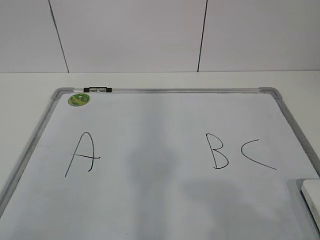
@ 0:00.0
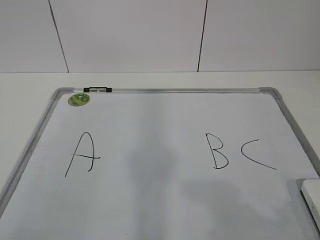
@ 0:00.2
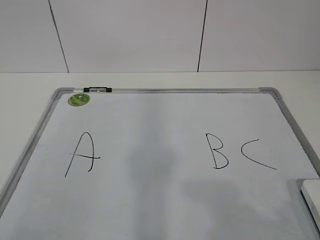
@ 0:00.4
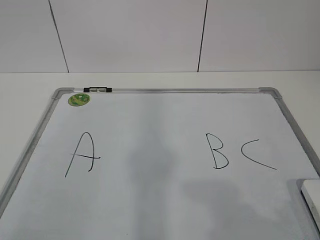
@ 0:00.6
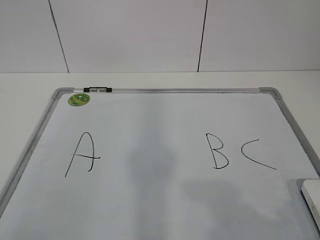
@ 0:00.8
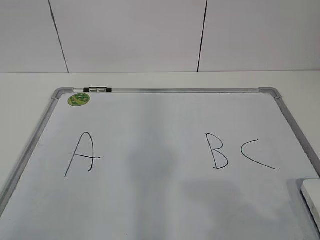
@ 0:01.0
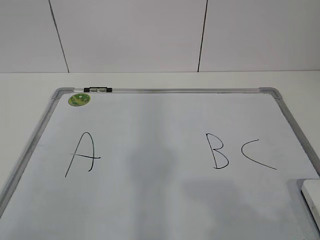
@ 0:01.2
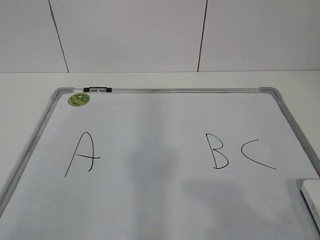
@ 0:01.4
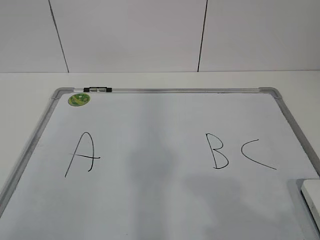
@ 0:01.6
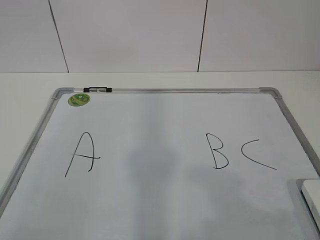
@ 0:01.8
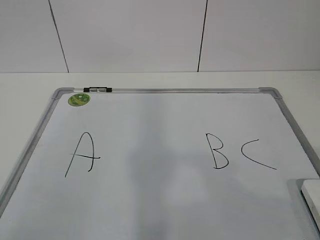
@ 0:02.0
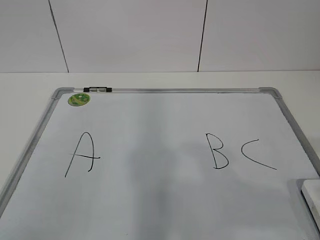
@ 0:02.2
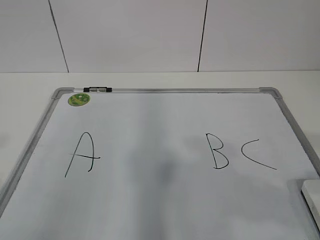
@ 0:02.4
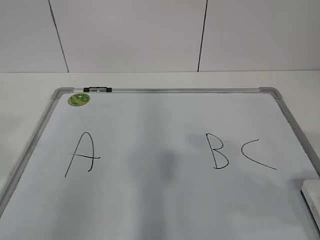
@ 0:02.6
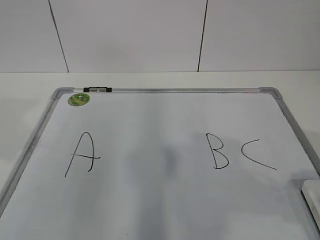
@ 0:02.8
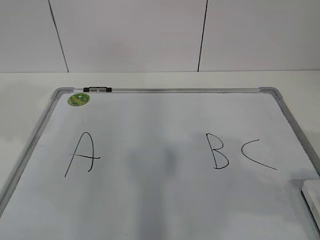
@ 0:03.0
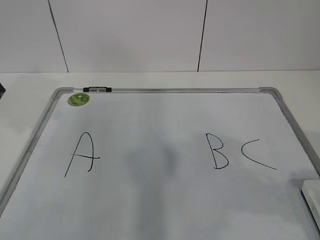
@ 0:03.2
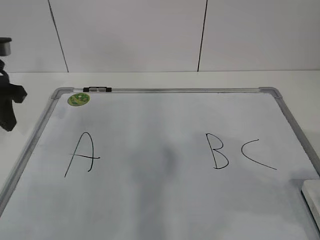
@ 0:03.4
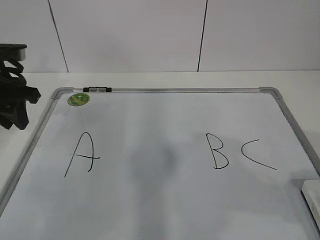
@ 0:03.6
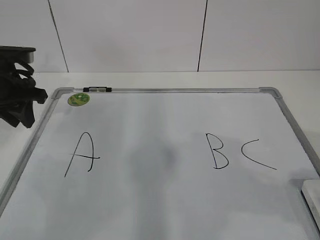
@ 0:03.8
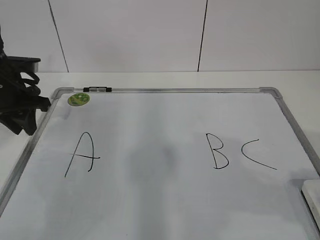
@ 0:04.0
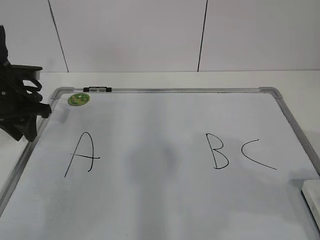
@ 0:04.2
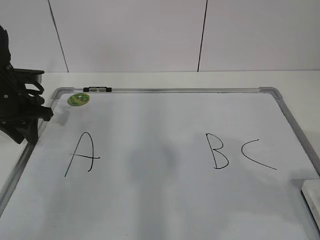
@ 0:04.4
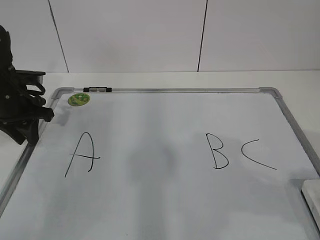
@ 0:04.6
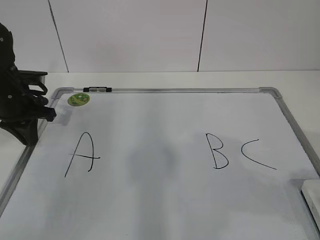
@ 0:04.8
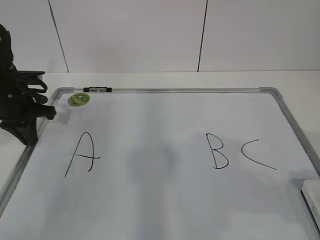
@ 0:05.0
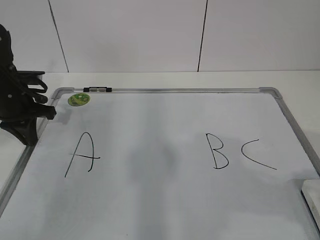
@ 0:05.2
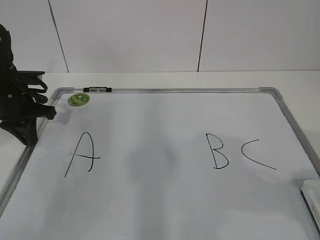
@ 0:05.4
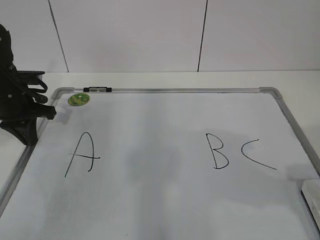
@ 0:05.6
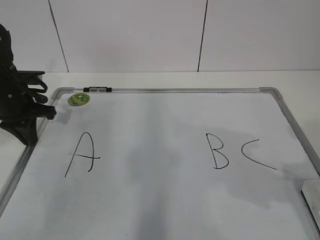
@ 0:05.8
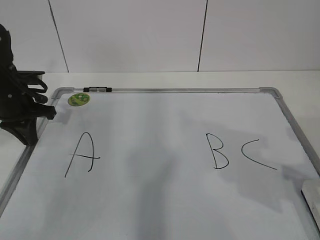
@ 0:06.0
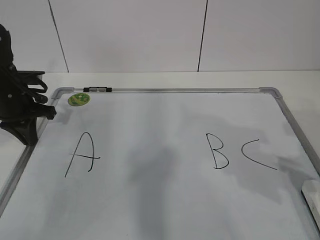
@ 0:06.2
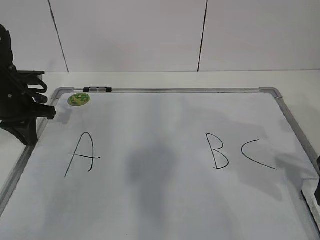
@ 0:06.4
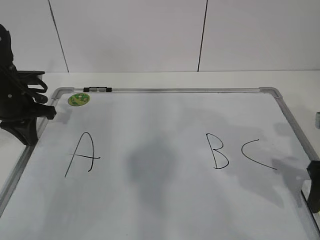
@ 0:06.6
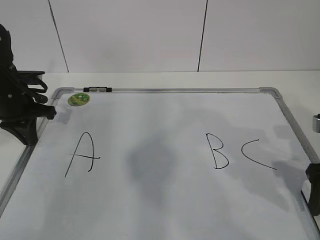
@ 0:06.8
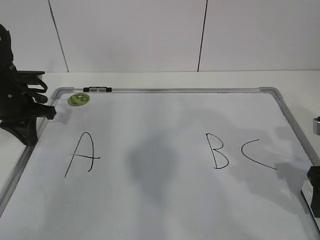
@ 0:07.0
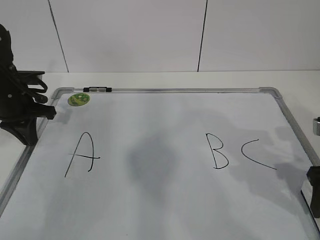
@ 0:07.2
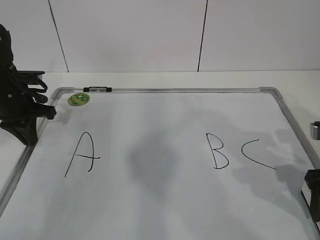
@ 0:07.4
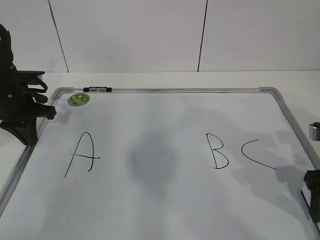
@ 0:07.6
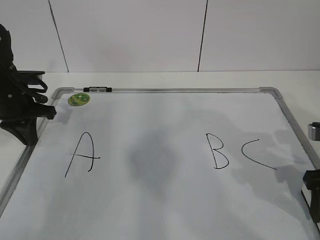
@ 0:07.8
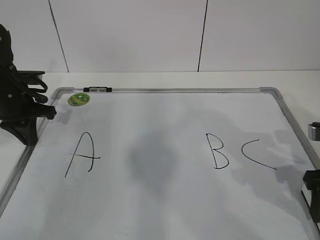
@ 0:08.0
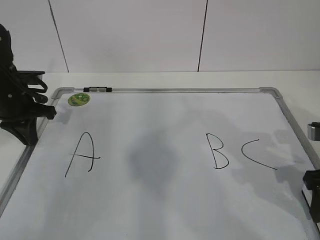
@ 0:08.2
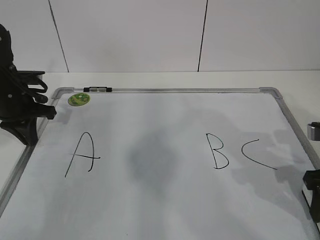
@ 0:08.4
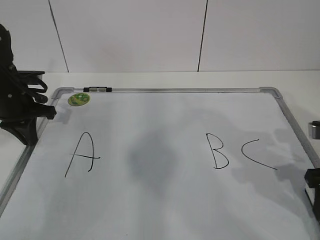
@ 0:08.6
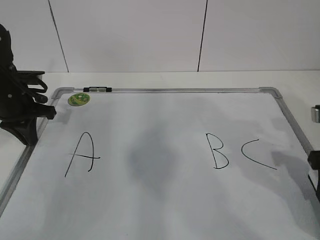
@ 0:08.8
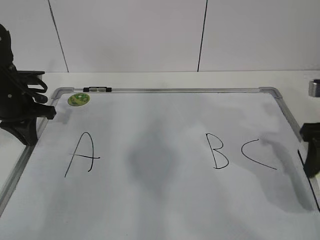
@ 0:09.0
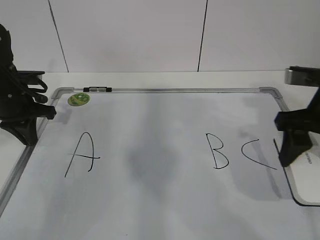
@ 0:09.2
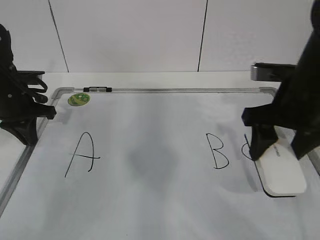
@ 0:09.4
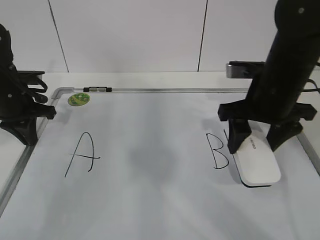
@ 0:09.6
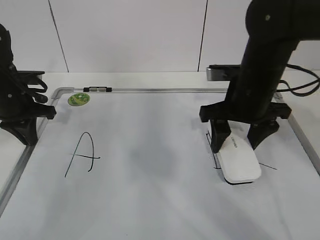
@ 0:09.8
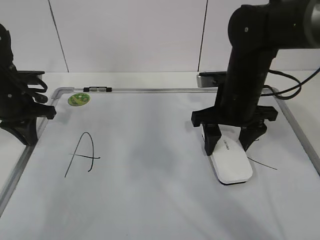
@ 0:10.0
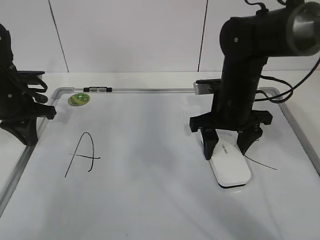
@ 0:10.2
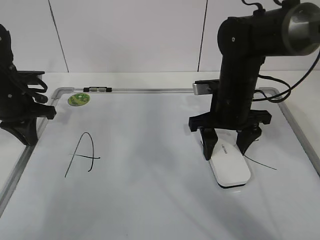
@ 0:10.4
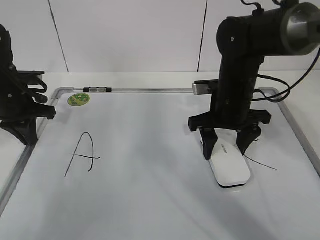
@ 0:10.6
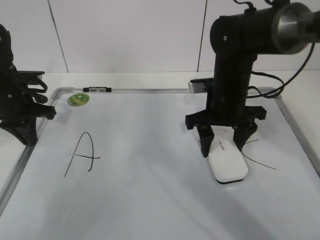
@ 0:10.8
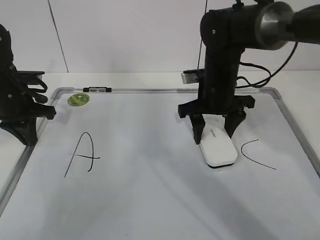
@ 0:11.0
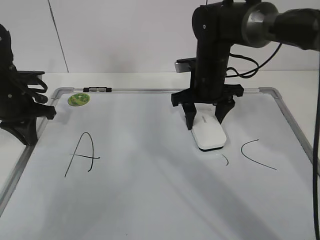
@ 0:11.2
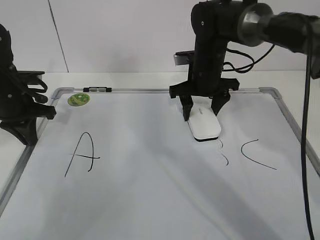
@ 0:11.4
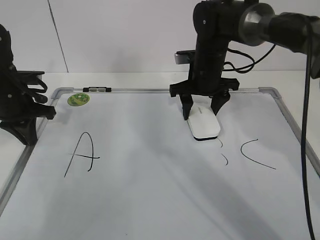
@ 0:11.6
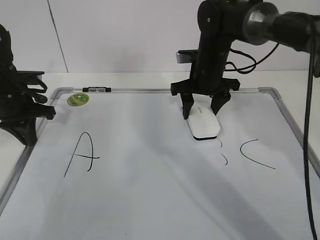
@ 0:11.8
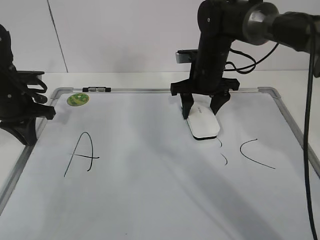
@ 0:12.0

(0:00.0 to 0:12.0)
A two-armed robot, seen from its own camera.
Task of the whole recording: pick up the eraser on the blackboard and erase the letter "B".
Step, 0:00.0 - 0:04.0: Hold the drawing board steady with your left hand.
Step, 0:04.2 - 0:07.0: Grab the eraser with your right hand.
0:01.6 - 0:03.0: The right gripper travels forward by roughly 10 cm. The left gripper heads forward, covering about 25 cm.
0:03.0 - 0:04.4: The left gripper shifts roughly 20 cm forward and downward.
0:04.4 - 0:06.0: The left gripper closes.
0:06.0 - 0:07.6: The right gripper is displaced forward by some 5 cm.
0:07.6 - 0:09.0: The right gripper moves about 5 cm, and closes its fingers.
0:09.0 - 0:10.4: The right gripper moves to the left and forward, some 20 cm.
0:10.4 - 0:12.0: The right gripper moves forward, some 10 cm.

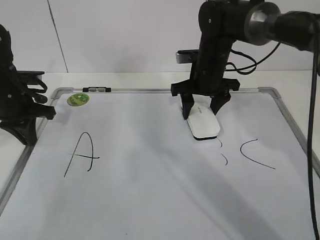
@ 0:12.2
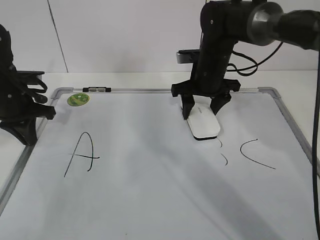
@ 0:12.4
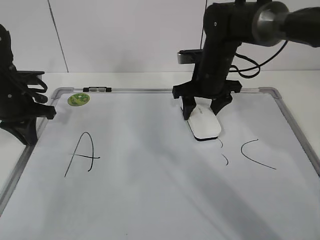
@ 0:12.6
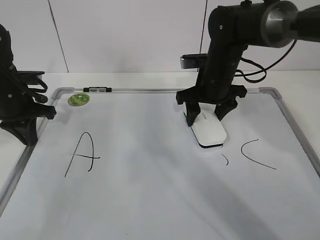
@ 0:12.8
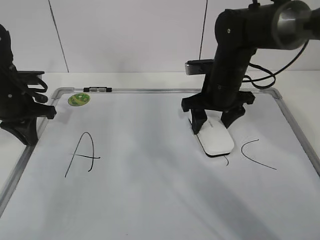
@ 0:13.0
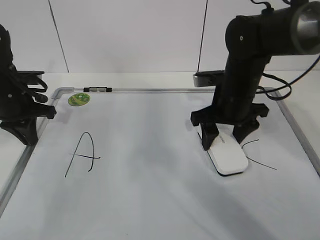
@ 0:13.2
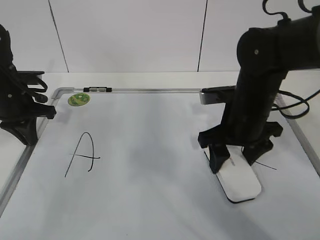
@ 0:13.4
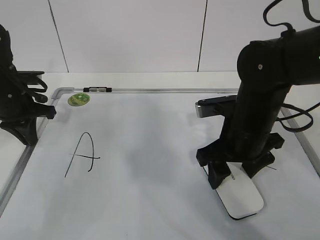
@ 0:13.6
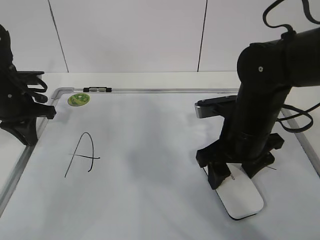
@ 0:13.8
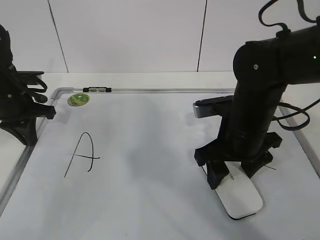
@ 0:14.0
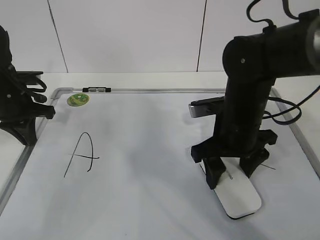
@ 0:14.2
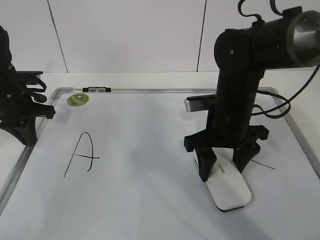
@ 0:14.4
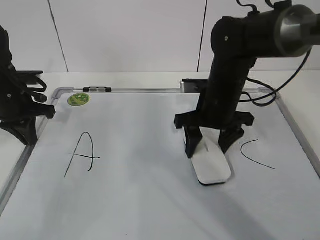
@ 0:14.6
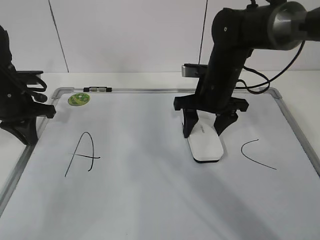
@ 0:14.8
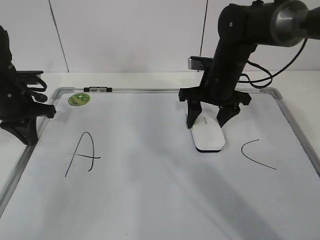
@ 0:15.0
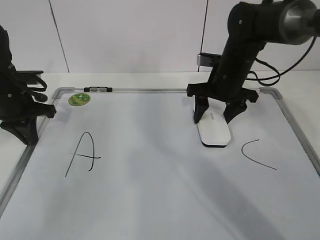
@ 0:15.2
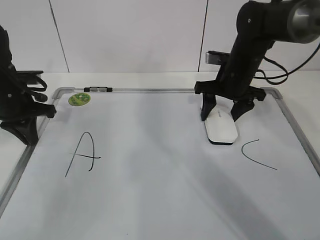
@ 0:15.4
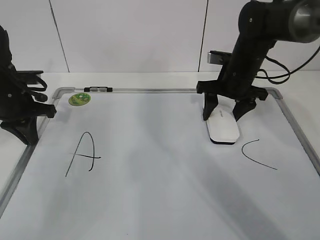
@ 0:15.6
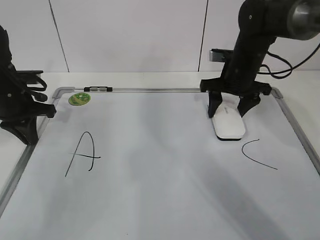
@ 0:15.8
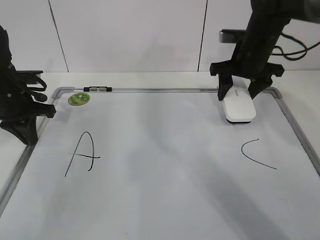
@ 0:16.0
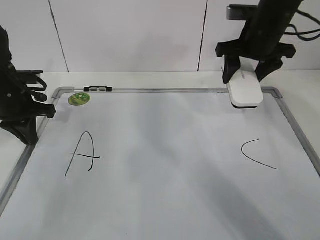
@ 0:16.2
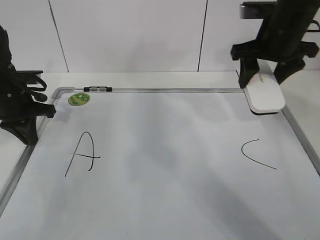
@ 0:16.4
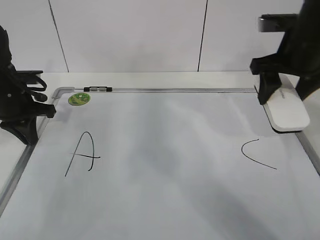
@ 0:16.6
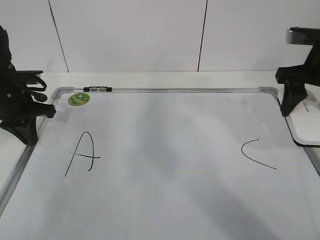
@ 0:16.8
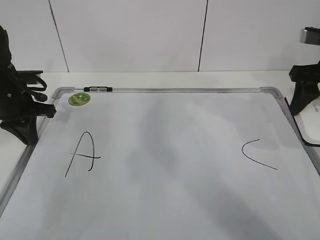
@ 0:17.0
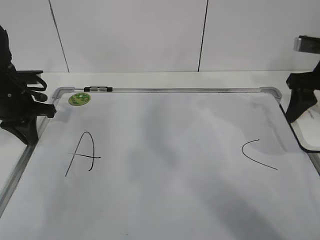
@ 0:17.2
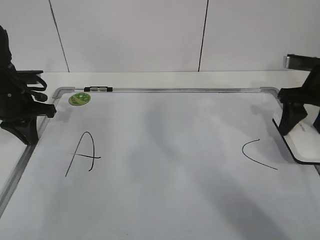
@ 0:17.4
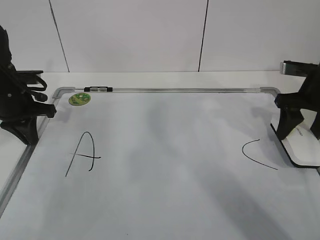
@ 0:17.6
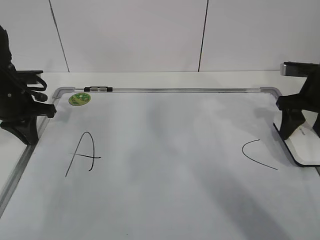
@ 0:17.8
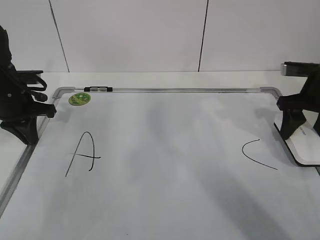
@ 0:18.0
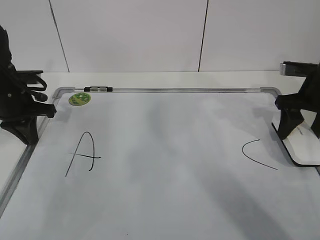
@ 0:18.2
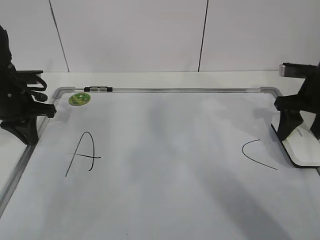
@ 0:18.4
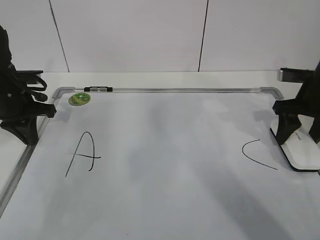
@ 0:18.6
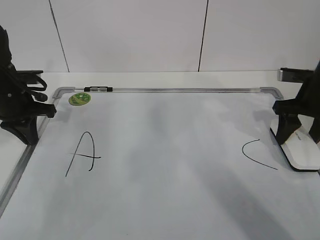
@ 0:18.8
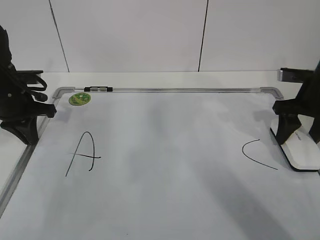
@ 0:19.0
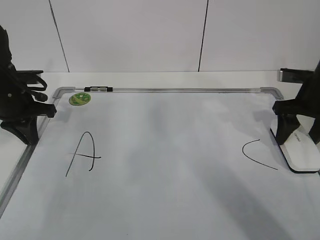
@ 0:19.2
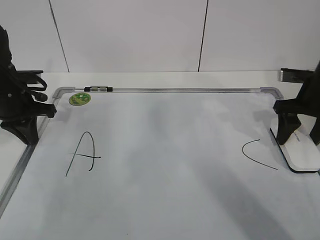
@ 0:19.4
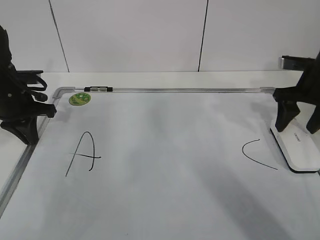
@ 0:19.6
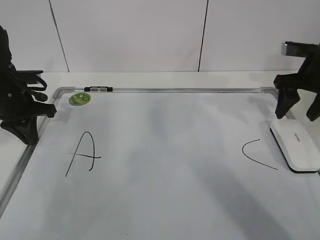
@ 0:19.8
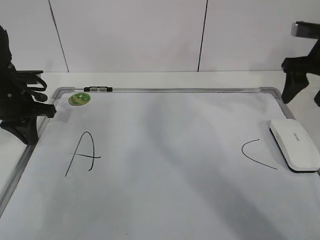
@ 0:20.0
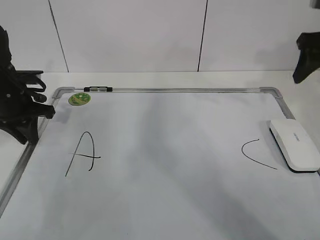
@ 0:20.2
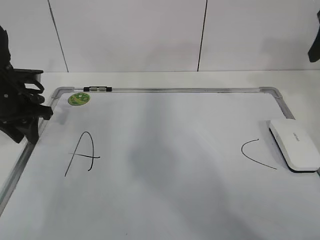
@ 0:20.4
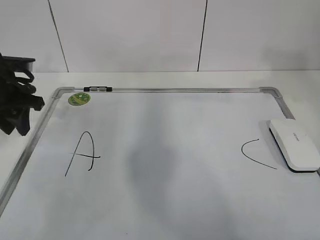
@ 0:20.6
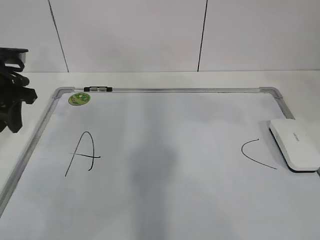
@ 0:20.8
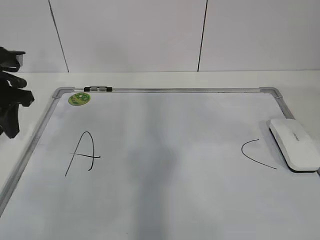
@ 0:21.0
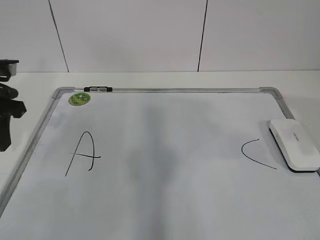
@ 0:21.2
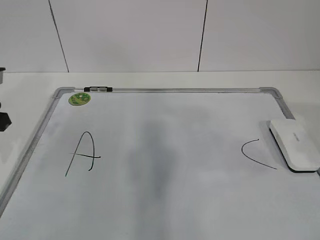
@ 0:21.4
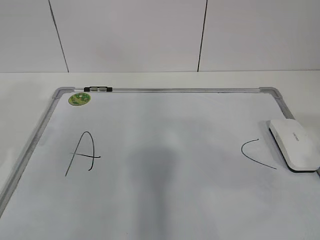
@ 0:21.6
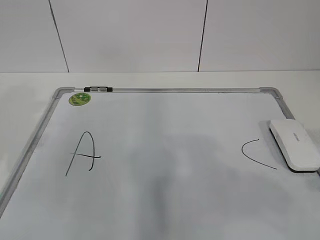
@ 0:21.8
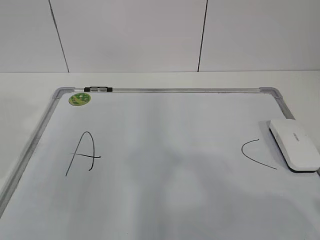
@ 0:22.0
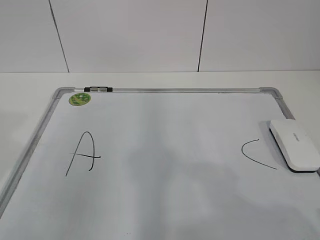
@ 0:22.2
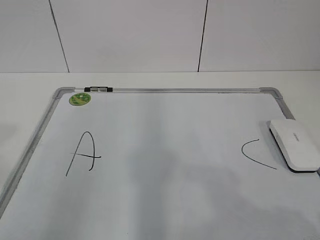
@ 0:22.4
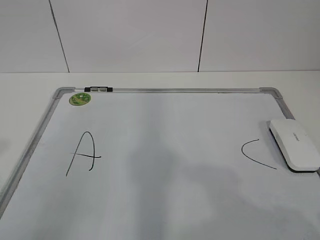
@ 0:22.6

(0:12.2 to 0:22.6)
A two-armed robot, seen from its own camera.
Task of the whole recording: pick up the eraser on the blackboard and erase the letter "B".
Step, 0:13.2 - 0:15.8: Put down the eraser with your right hand.
0:12.2 - 0:13.6: The right gripper travels backward by roughly 15 cm.
0:13.6 - 0:15.2: The right gripper is displaced forward by some 15 cm.
0:15.2 - 0:16.6: The right gripper heads upward, to the right and backward, covering some 15 cm.
0:16.6 - 0:18.2: The right gripper heads downward and to the right, covering some 10 cm.
0:18.2 - 0:19.6: The right gripper opens up.
0:19.6 - 0:21.2: The left gripper heads upward and backward, covering about 10 cm, and opens its fingers, while the right gripper goes roughly 25 cm backward and upward.
0:21.2 - 0:22.6: The right gripper travels backward by some 15 cm, while the left gripper heads backward, covering some 25 cm.
